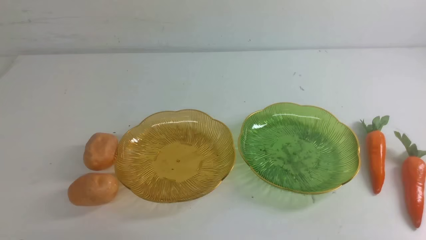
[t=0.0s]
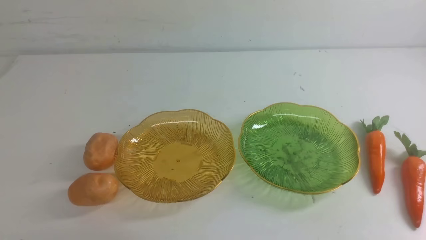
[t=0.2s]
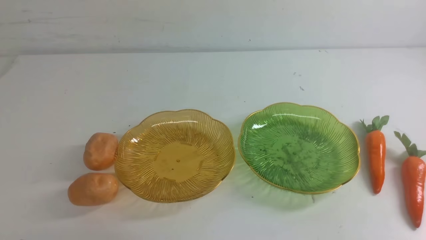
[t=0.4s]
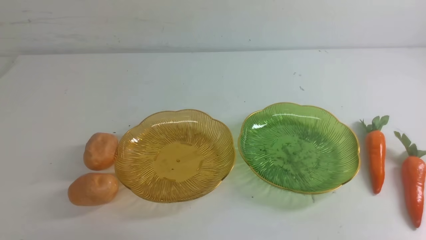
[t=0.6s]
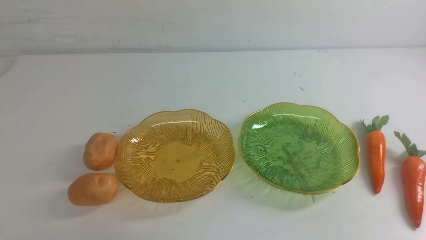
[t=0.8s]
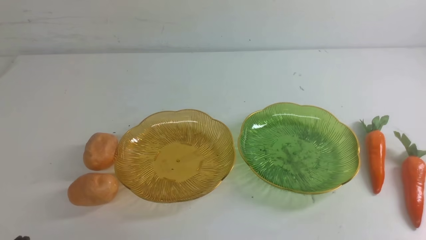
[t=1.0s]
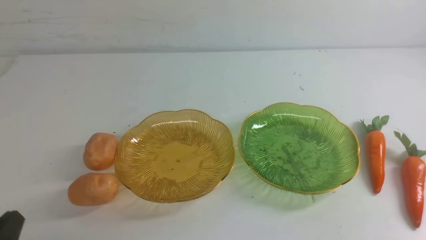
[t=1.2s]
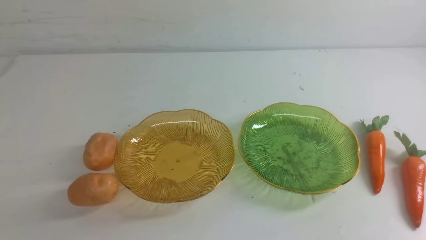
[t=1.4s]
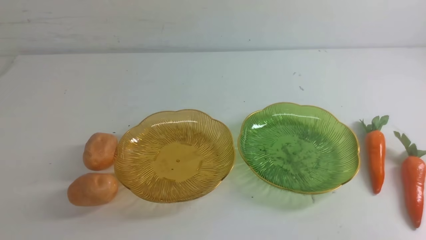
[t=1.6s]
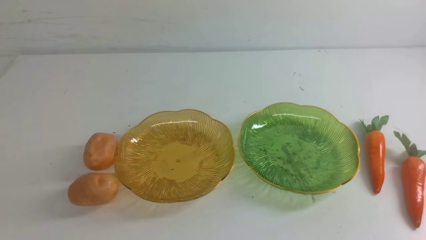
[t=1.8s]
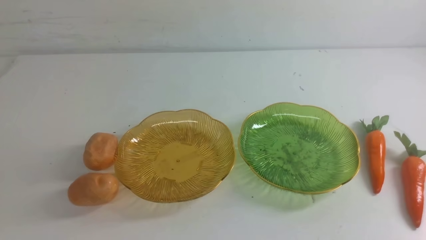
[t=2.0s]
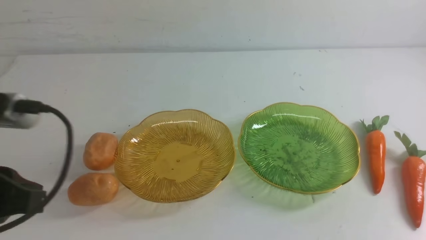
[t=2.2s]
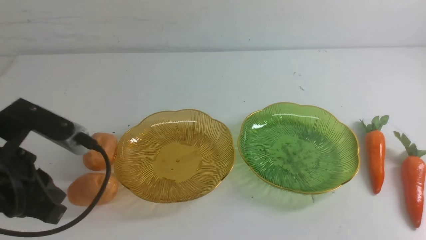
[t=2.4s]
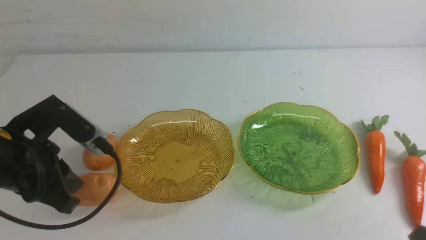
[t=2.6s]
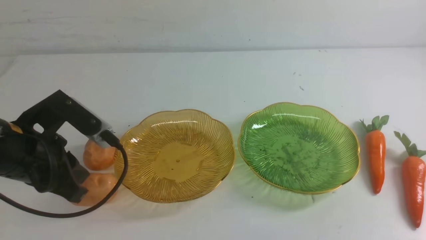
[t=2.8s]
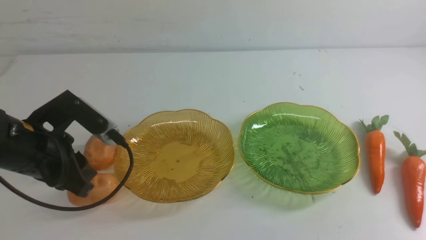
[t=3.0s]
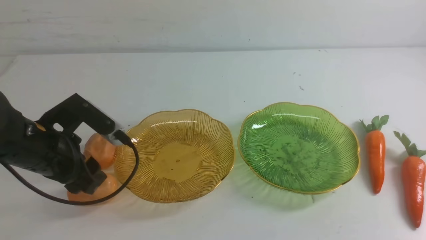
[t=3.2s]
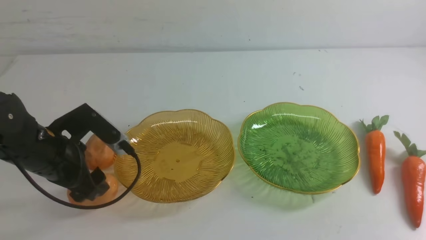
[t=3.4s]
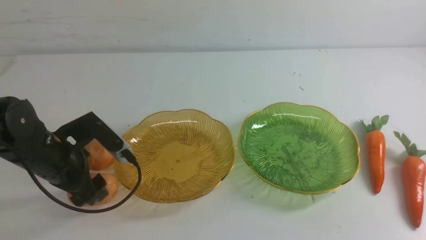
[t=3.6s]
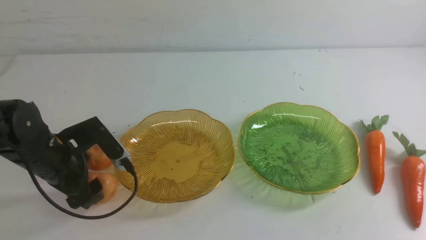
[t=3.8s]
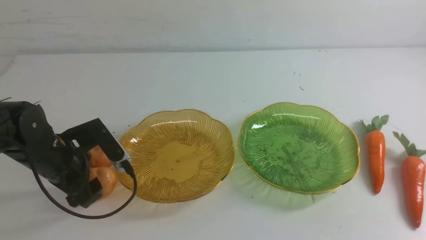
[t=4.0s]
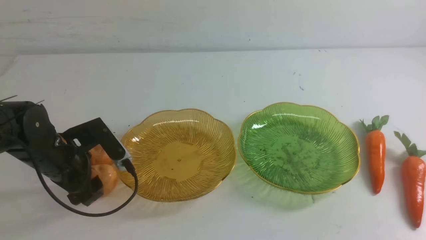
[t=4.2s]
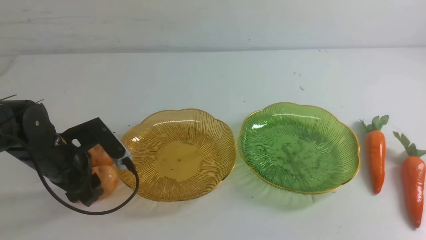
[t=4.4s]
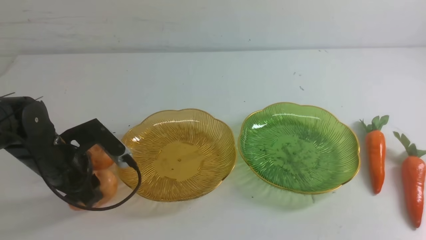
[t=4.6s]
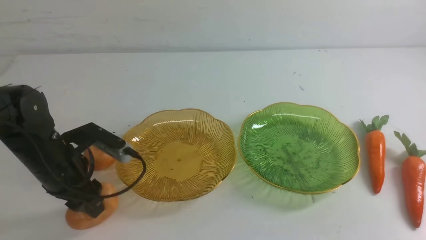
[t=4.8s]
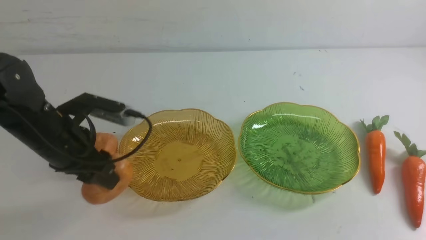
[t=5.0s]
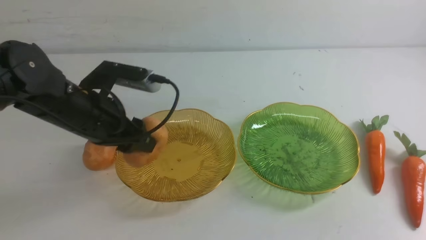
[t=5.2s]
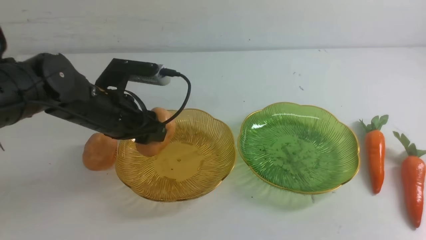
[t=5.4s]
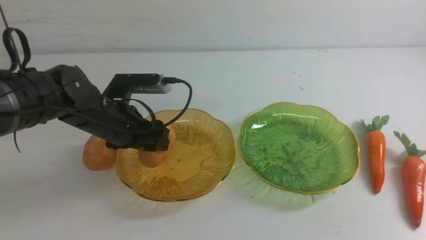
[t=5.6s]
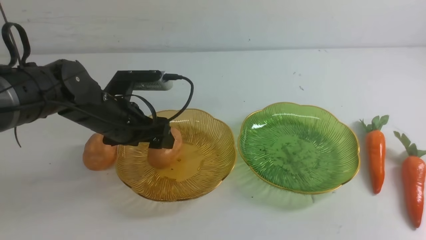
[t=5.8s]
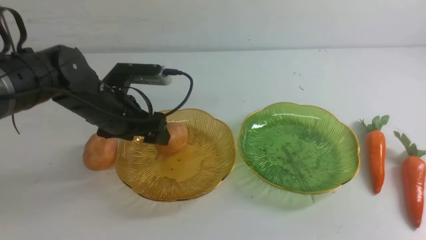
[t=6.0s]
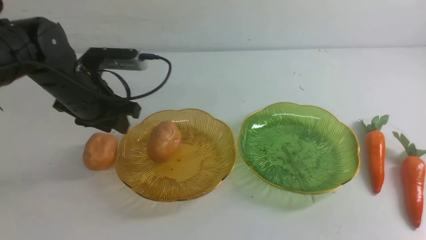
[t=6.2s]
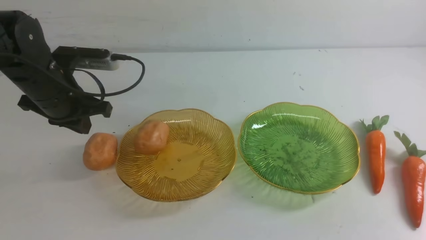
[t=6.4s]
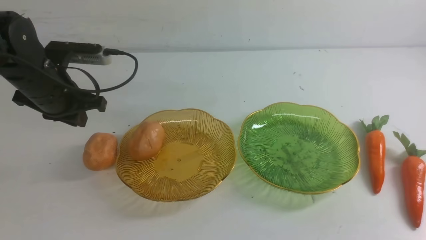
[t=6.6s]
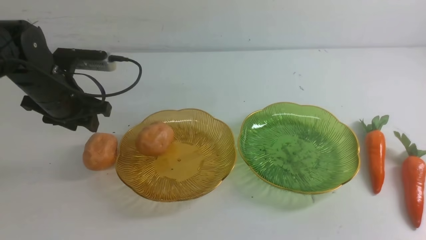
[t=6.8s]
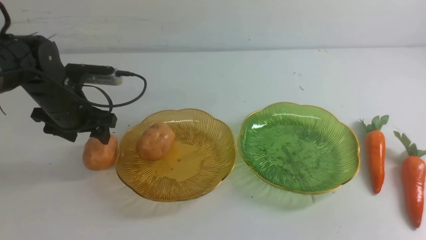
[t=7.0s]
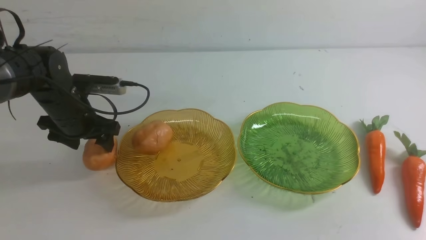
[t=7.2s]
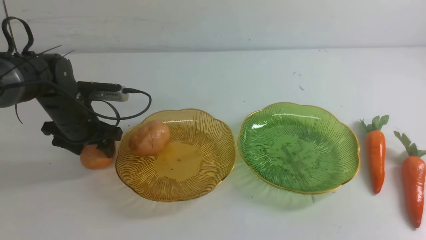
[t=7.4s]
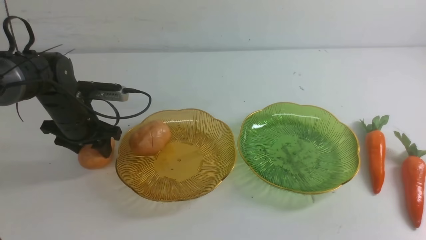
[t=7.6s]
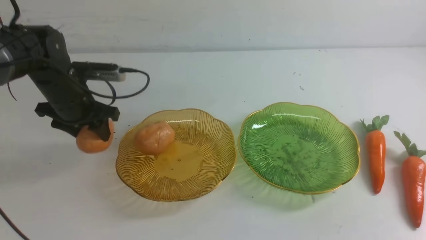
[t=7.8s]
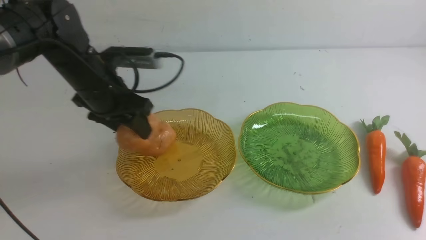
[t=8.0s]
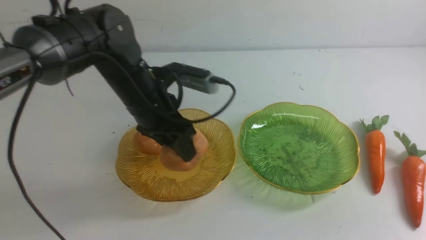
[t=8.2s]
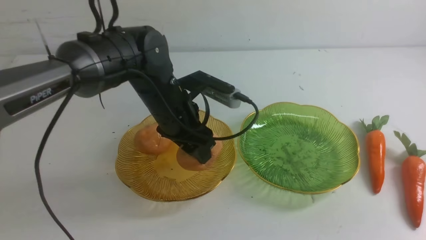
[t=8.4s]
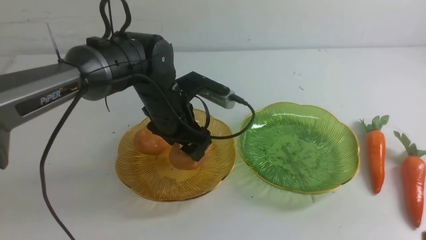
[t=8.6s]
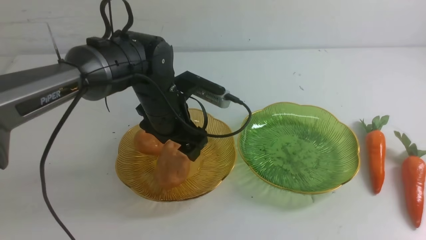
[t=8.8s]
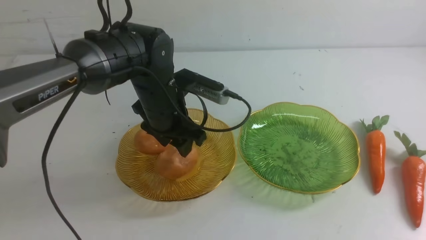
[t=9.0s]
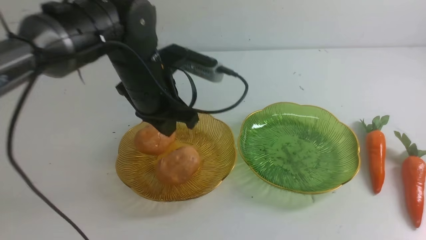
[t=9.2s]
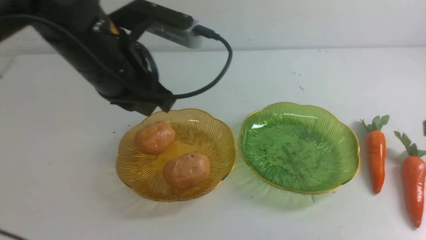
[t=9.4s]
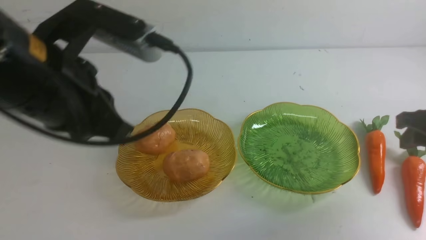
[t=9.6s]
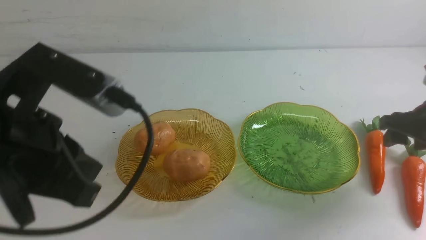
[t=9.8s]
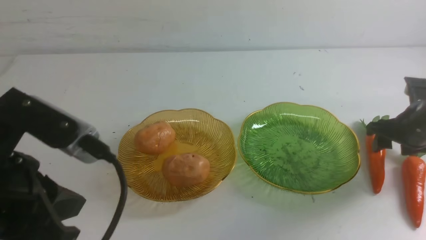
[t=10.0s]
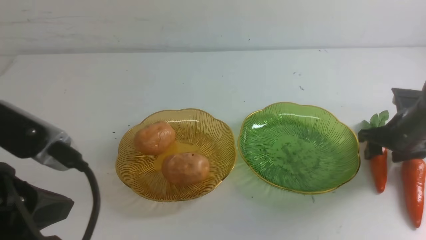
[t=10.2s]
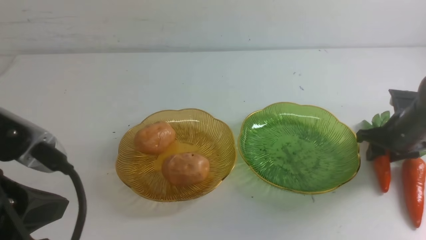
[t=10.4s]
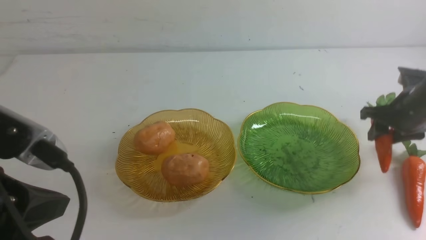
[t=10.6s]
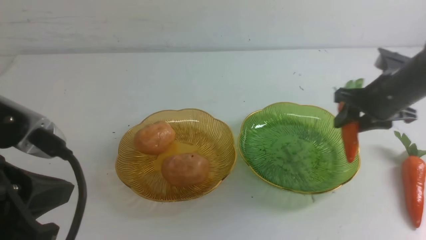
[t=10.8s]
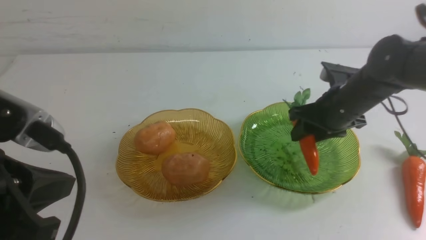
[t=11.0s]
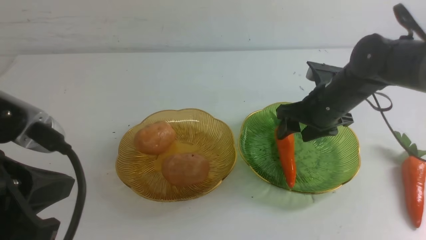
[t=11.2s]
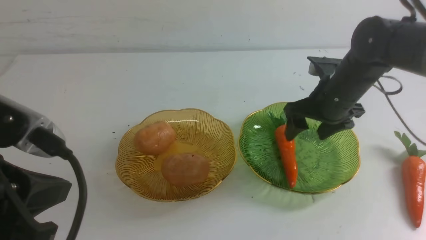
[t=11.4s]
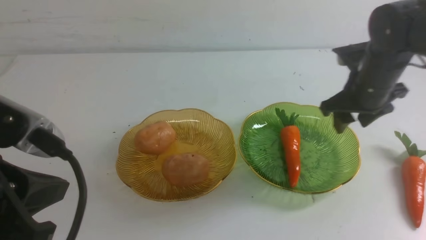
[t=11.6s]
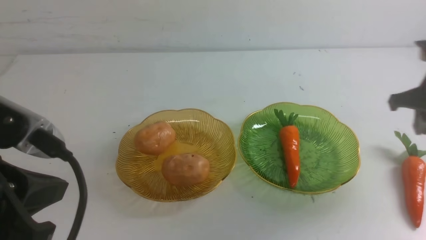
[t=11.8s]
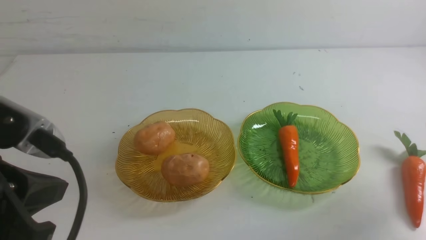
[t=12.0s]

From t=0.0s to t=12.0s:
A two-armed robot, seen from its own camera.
Step, from t=0.0s to t=5.8s: Grab a potato with your left arm and put it on the left plate.
Step, from t=6.2s to t=9.0s: Grab a potato with your left arm and put it on the left plate.
Step, from t=9.2s to t=11.2s: use the right arm to grab a carrot and put it into the right plate.
From t=1.6s to t=3.0s: The left gripper shifts roughly 20 cm forward.
From t=3.0s to t=4.4s: The left gripper travels downward by some 10 cm, and opens.
From t=4.4s to t=6.0s: The left gripper is displaced to the right, upward and forward by roughly 10 cm.
From t=6.0s to t=7.6s: The left gripper goes roughly 5 cm to the left, and closes, then reopens.
From t=7.6s to t=9.0s: The left gripper shifts roughly 15 cm to the right. Meanwhile the right gripper travels forward and upward by approximately 10 cm.
From t=9.0s to t=10.4s: The left gripper is displaced backward, to the left and upward by roughly 30 cm, and closes up; the right gripper heads forward and downward, covering roughly 30 cm, and opens.
From t=10.4s to t=12.0s: The right gripper moves to the right and backward, approximately 10 cm, and closes and opens again.

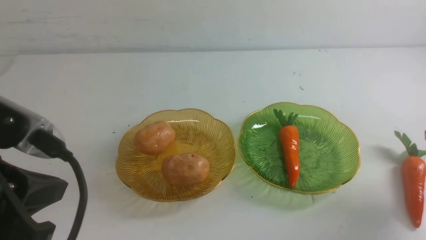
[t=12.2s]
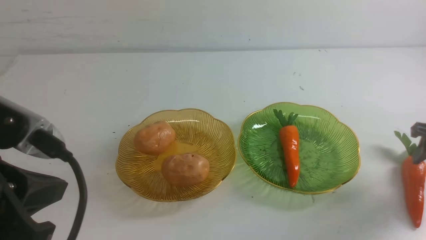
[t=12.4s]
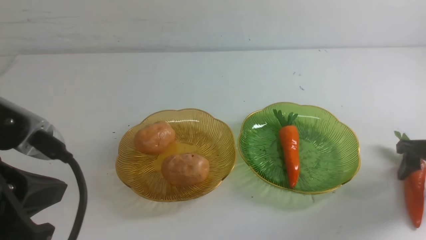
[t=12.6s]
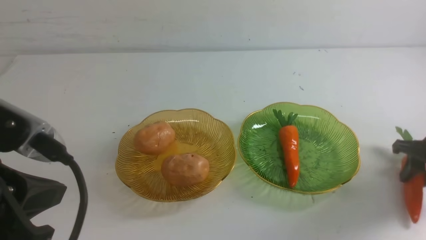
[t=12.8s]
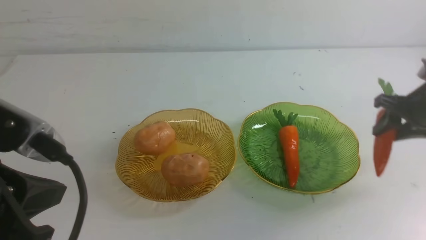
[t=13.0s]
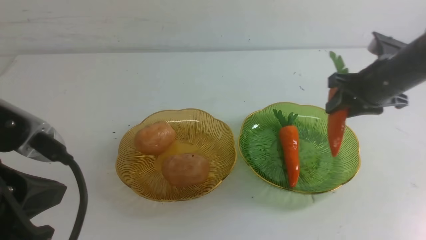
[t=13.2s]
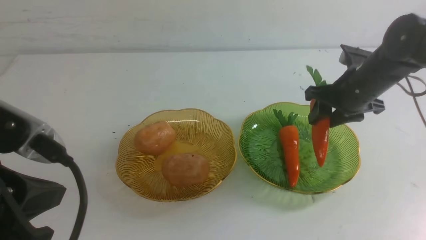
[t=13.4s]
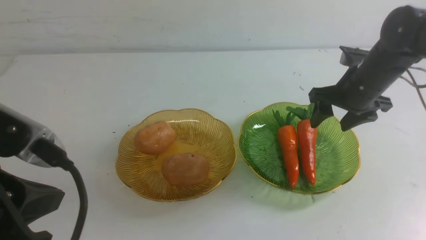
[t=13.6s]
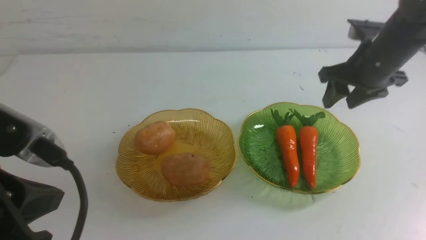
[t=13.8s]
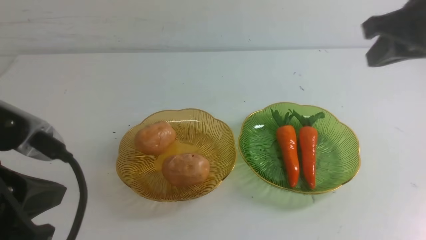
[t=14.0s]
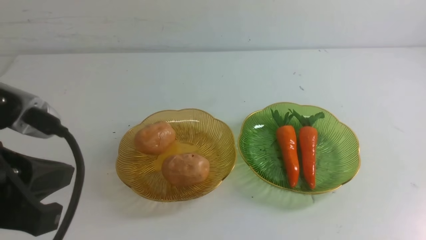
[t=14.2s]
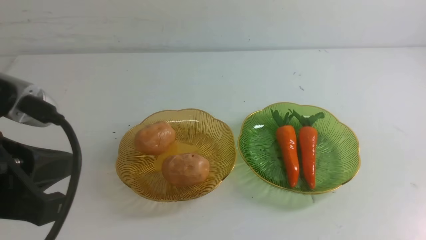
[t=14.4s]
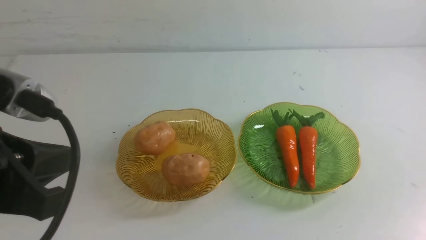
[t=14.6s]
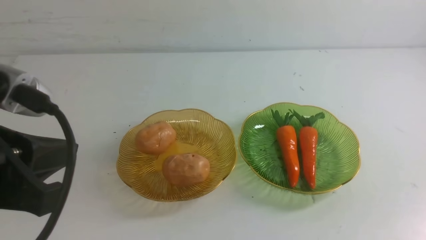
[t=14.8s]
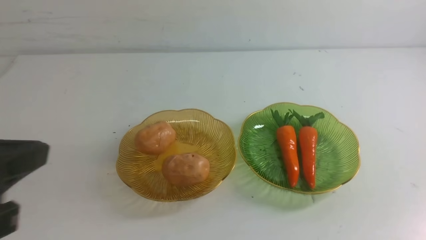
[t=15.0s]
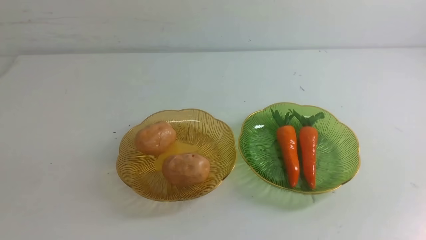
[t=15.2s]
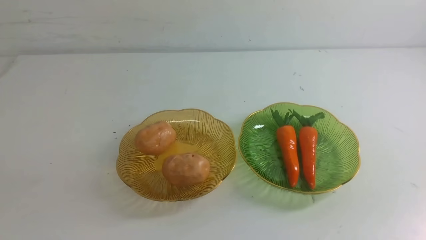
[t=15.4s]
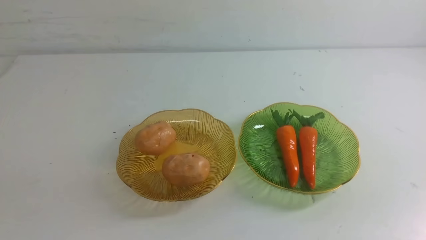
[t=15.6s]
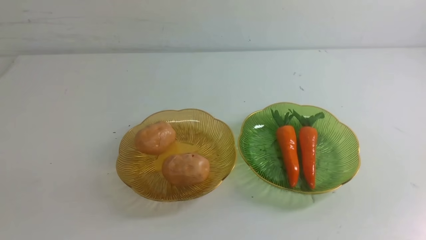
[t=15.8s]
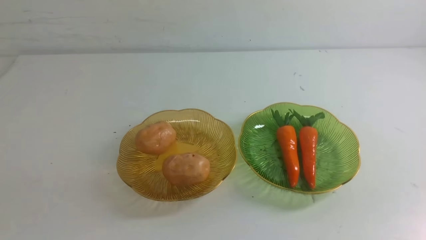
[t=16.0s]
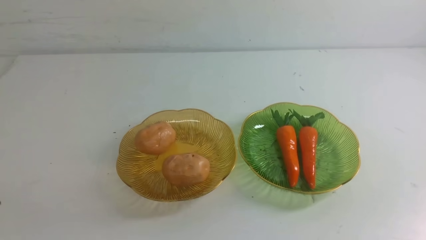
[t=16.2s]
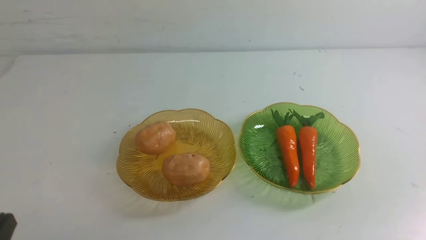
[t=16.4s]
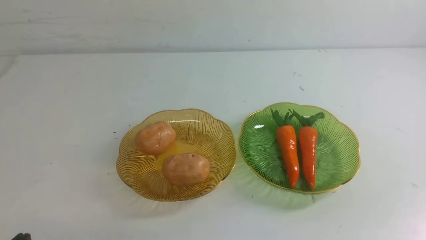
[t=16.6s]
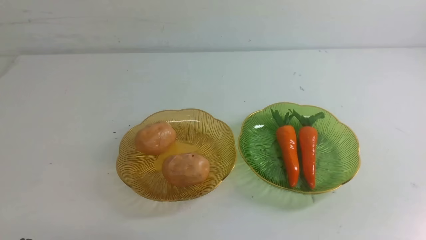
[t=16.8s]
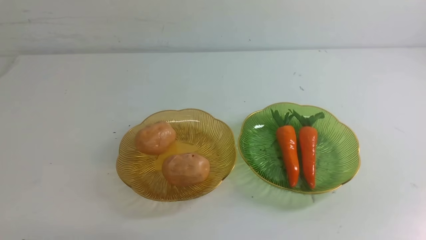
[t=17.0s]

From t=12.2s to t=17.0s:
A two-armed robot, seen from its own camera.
Step, from t=12.2s to t=13.6s: use the right arm to grab a carrot and put it into the right plate.
From t=12.2s to t=13.8s: The right gripper travels backward and upward by some 35 cm, and closes its fingers.
From t=13.8s to t=15.4s: The right gripper heads downward, covering some 10 cm, while the left gripper moves backward and to the left, roughly 10 cm.
